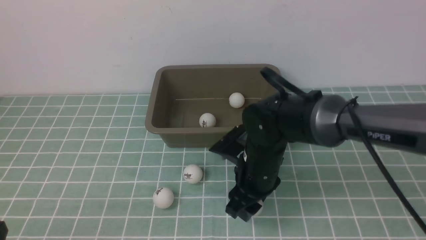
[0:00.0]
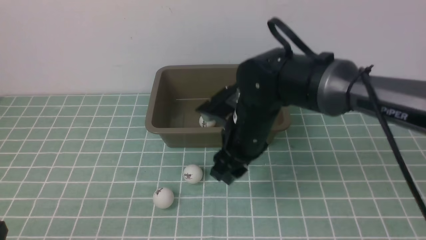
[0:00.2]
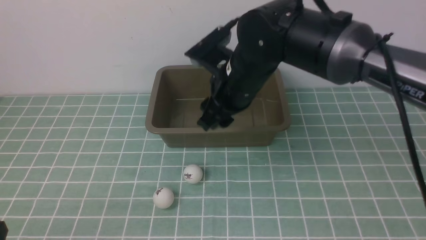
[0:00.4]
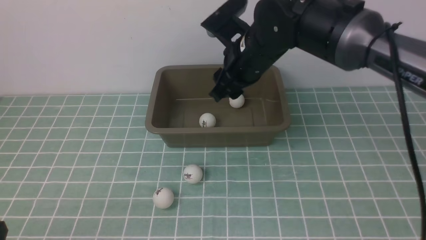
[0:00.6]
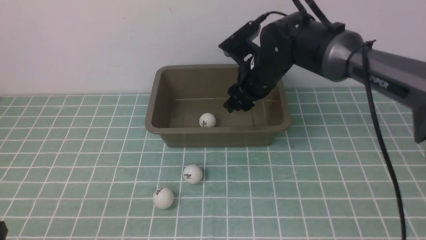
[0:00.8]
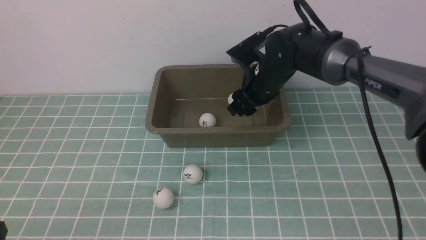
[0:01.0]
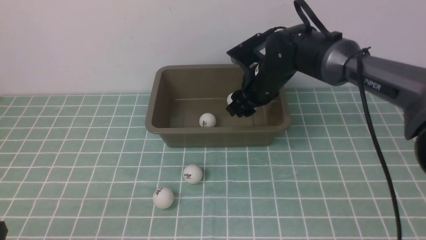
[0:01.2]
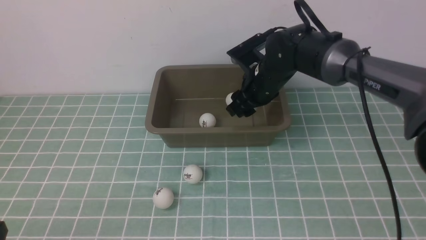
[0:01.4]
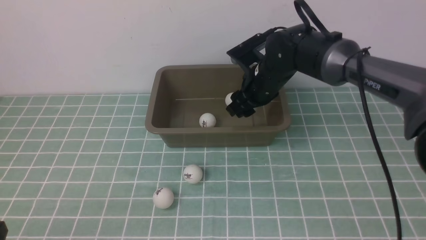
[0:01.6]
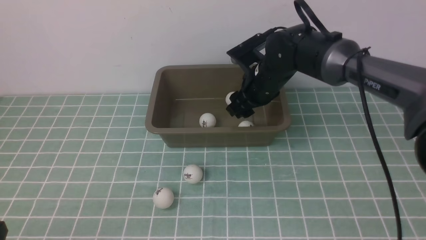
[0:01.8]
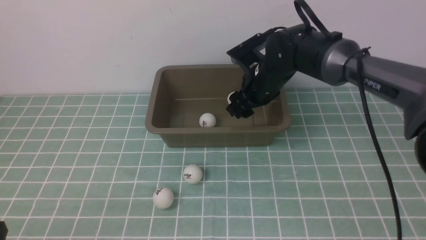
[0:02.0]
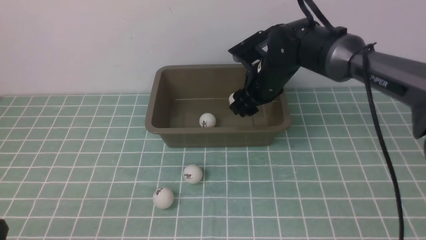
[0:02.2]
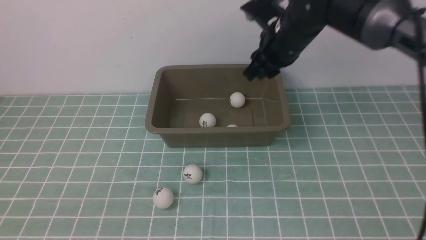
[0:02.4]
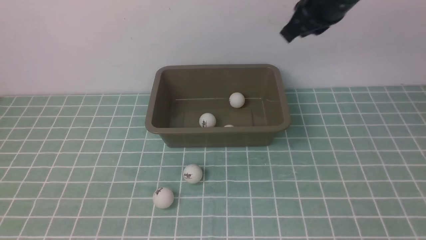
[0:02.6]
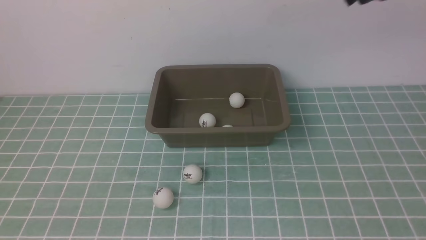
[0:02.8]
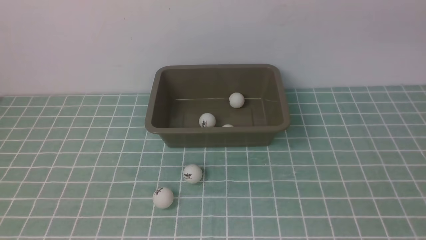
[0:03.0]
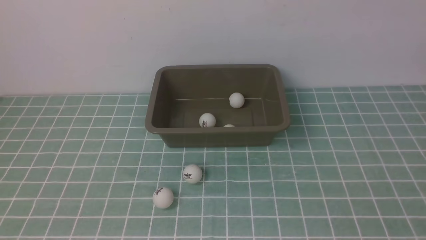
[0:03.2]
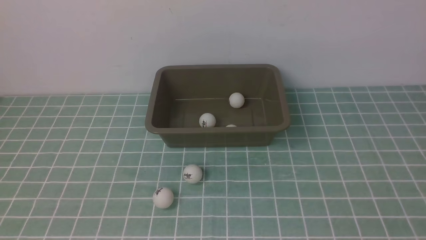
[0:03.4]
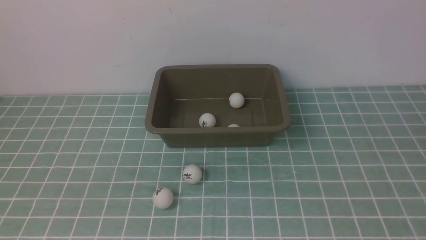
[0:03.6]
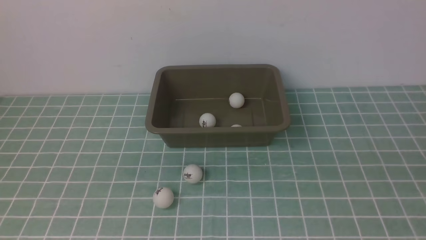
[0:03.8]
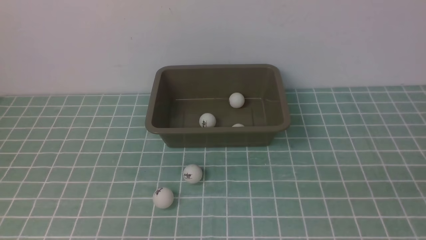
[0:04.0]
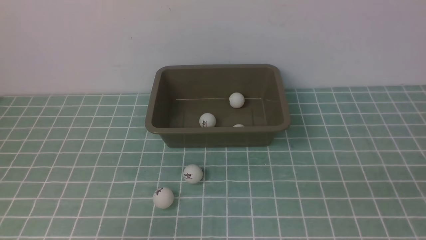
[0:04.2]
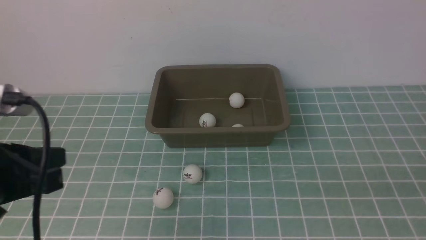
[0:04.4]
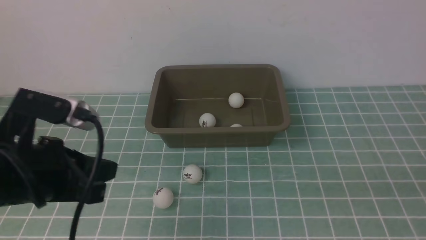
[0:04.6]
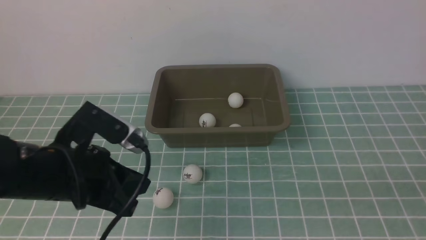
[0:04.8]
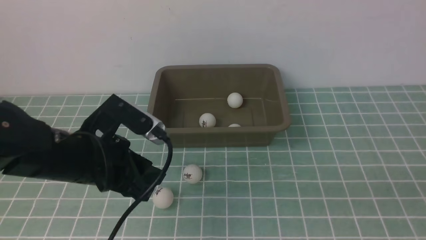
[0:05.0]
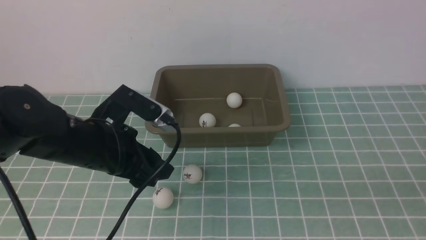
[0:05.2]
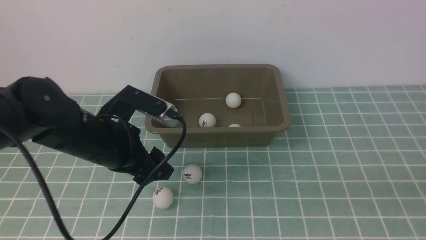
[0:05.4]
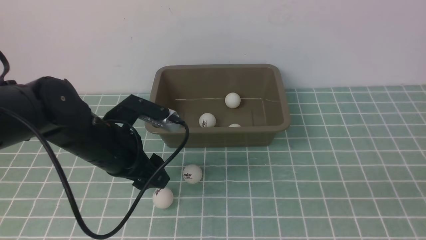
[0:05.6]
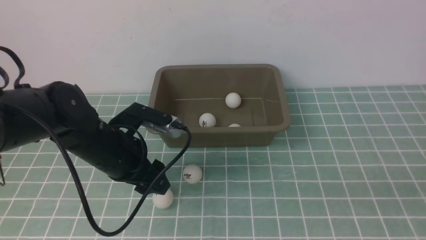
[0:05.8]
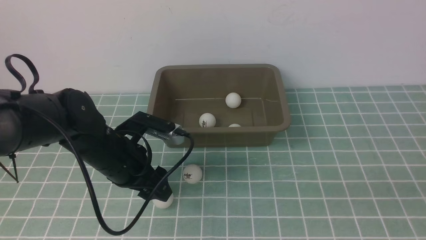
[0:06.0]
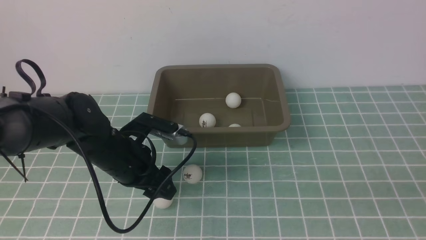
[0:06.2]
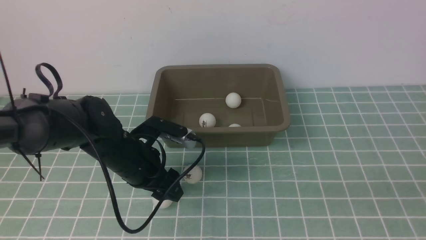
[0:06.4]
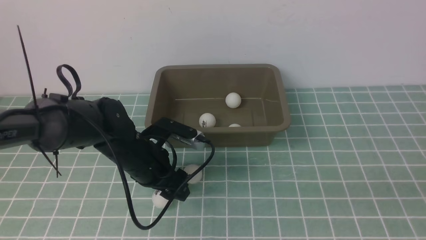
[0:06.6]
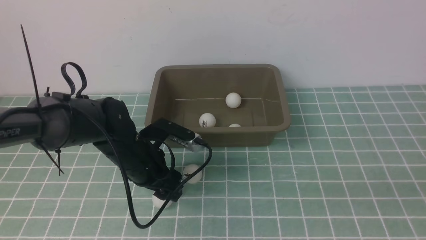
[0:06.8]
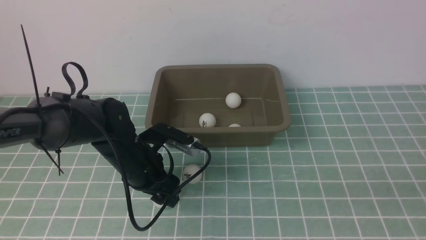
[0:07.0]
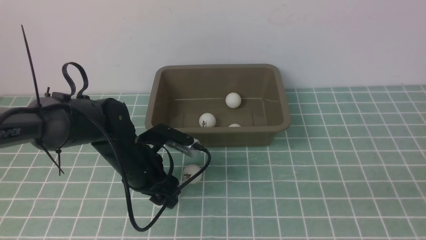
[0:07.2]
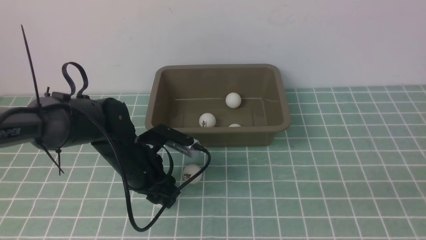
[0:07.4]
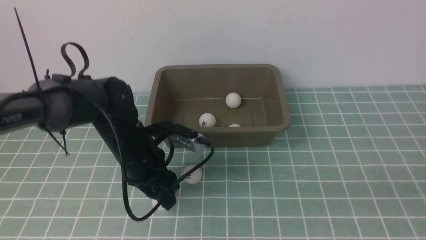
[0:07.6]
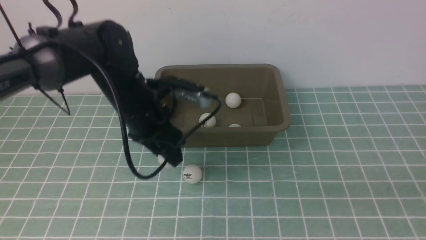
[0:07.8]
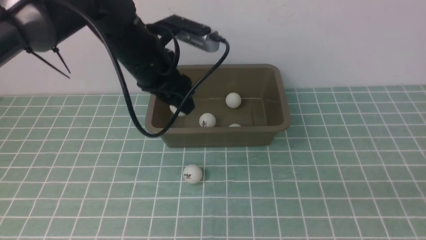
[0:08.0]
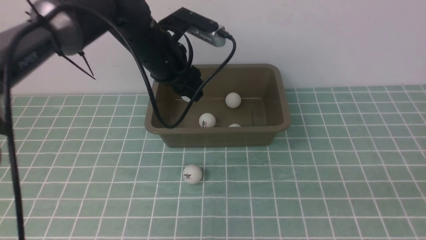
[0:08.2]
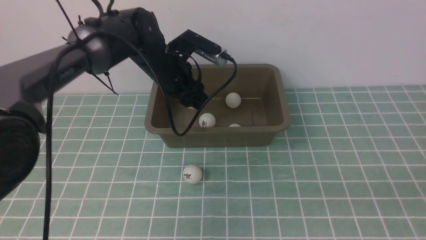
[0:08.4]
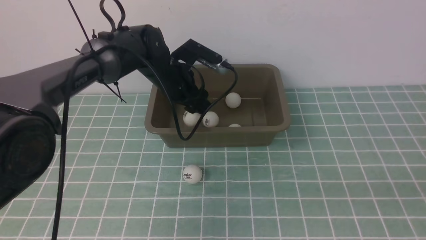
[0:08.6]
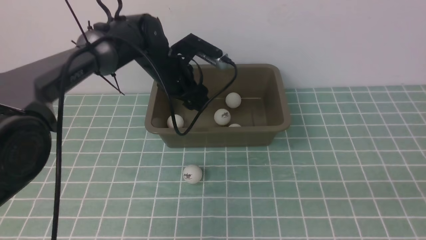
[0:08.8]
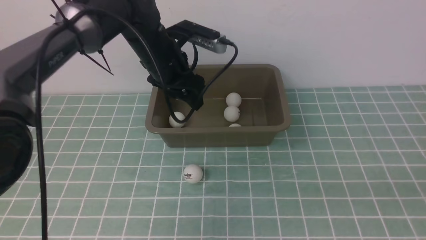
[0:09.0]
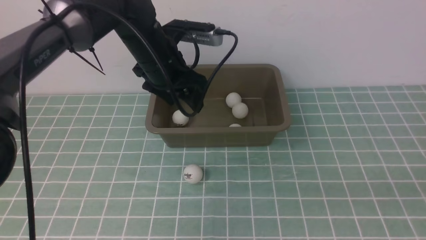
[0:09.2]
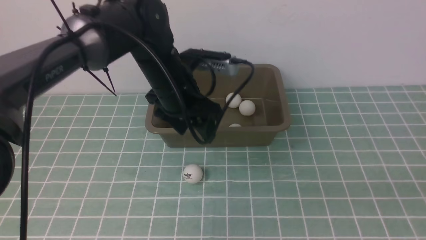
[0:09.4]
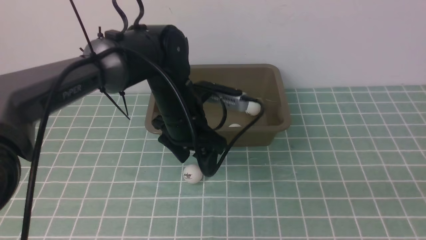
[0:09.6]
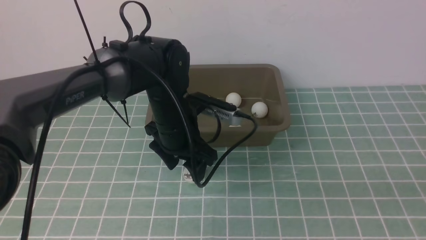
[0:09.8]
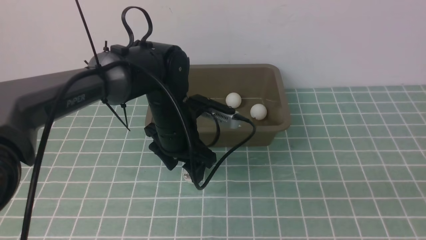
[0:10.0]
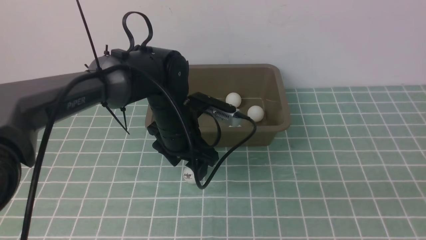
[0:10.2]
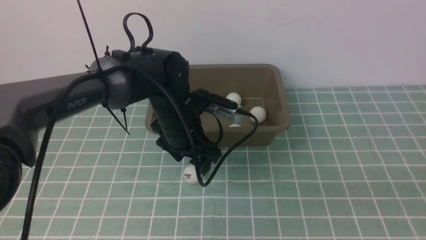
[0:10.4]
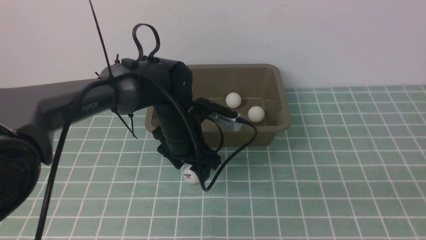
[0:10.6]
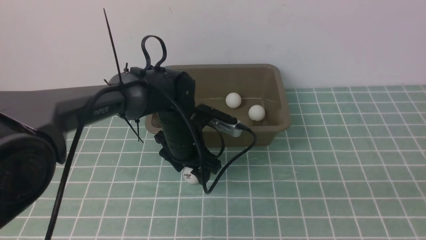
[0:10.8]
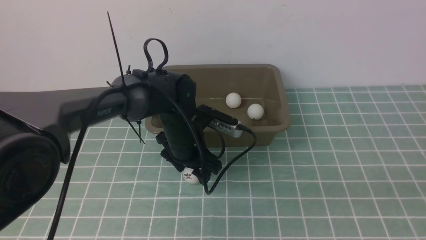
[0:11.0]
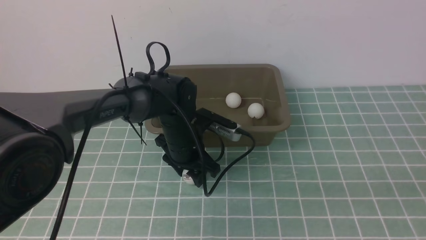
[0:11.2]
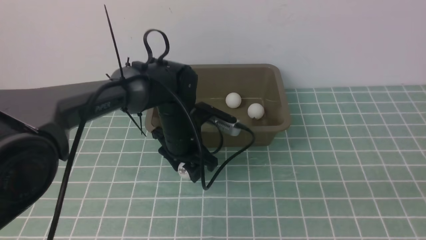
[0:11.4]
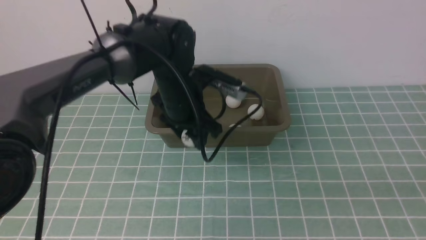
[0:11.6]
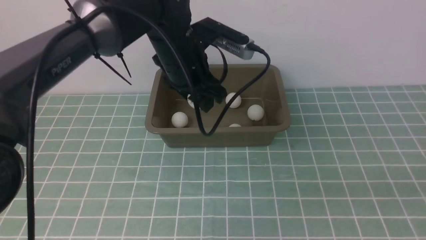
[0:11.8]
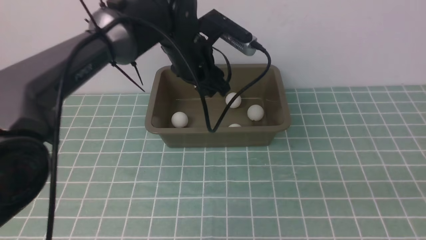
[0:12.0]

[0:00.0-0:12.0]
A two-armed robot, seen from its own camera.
Step, 0:00.4 to 0:02.0: use the right arm to put the table tennis ball into the box.
Step, 0:02.2 to 0:07.6: use the left arm to clamp the table tennis ball closest to it.
Step, 0:07.8 to 0:09.0: use the left arm to put the table tennis ball into the box.
Step, 0:09.2 to 0:11.4: use the left arm to clamp the table tennis ball closest to it.
0:00.0 to 0:01.6: The right gripper shifts about 15 cm forward.
0:01.6 to 0:03.0: The right gripper goes some 35 cm upward, to the right and backward, and closes. The left gripper is displaced upward by about 5 cm.
0:03.0 to 0:04.4: The right gripper moves backward and downward, approximately 25 cm; the left gripper travels forward and to the right by roughly 15 cm.
0:04.4 to 0:06.0: The left gripper heads forward, downward and to the right, covering about 15 cm, and opens its fingers.
0:06.0 to 0:07.6: The left gripper closes up.
0:07.6 to 0:09.0: The left gripper heads forward and upward, covering roughly 15 cm.
0:09.0 to 0:10.4: The left gripper heads backward and downward, covering roughly 10 cm.
0:10.4 to 0:12.0: The left gripper travels forward and upward by some 10 cm.

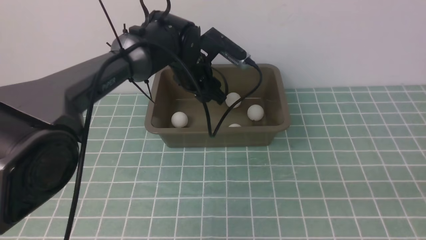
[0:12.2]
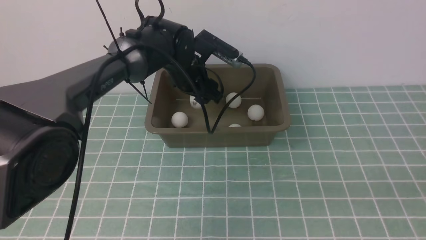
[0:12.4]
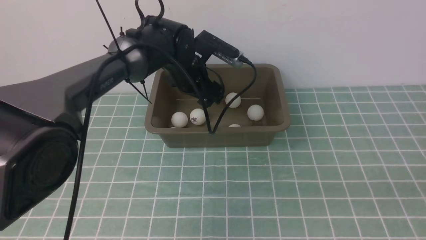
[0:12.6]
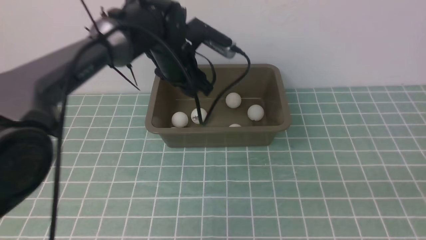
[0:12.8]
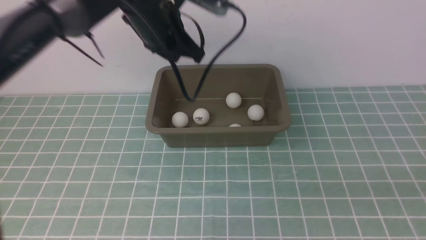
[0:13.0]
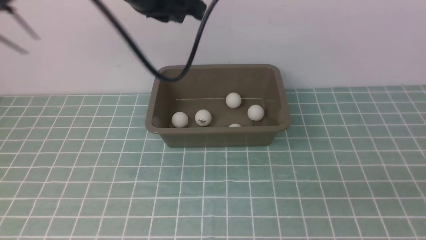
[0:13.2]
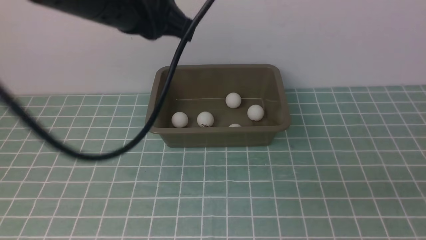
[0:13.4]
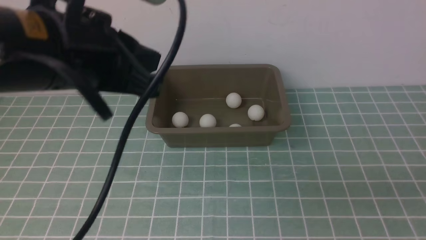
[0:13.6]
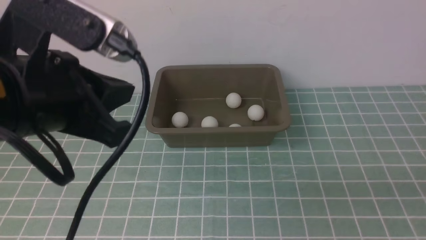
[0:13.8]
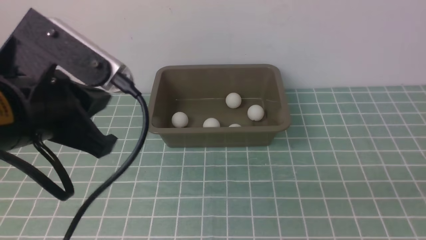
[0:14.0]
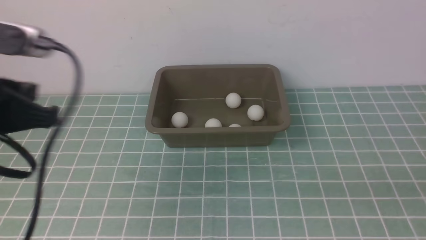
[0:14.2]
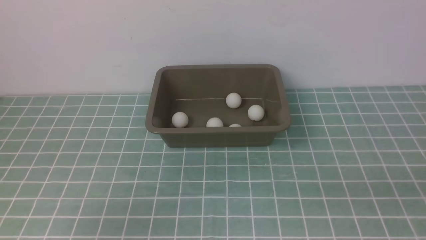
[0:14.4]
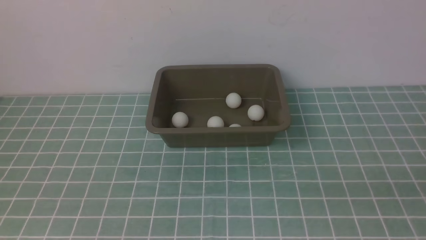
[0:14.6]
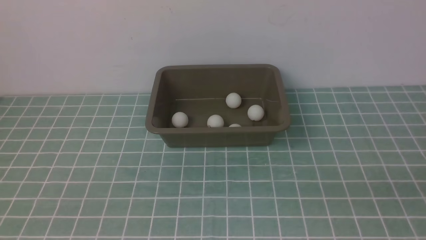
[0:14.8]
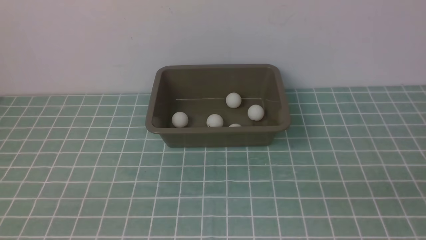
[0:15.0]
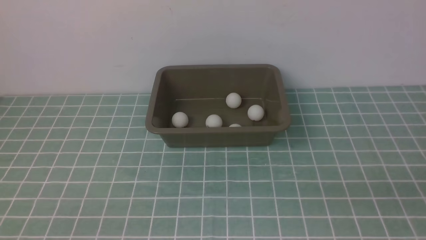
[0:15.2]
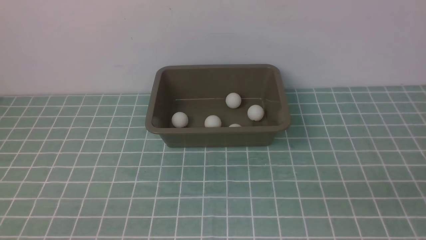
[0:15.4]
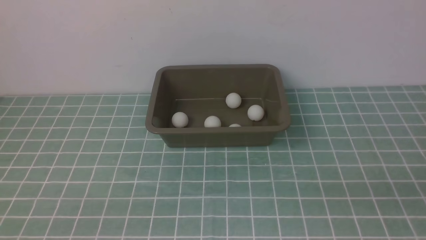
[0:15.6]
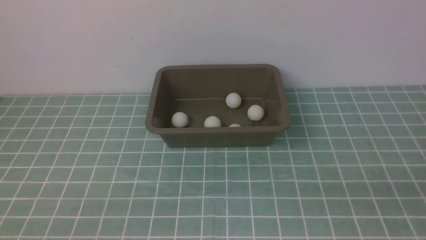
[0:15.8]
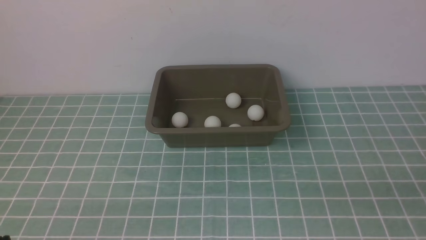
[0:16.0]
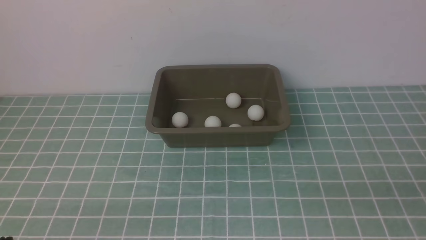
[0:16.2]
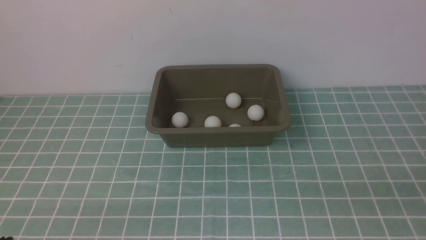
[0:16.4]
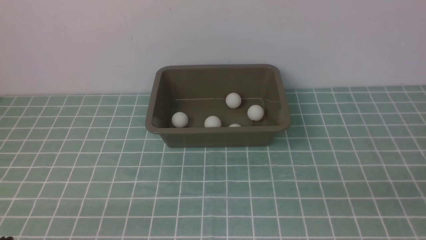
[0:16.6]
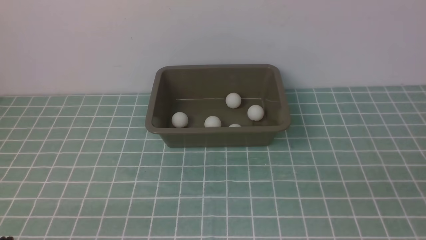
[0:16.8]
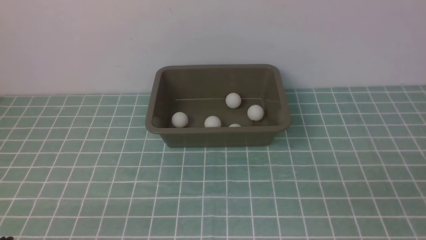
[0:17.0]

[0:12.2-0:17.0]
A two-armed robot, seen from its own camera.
0:12.2 to 0:13.8: The left gripper heads backward, to the left and upward, covering some 35 cm, and closes up.
0:13.8 to 0:15.4: The left gripper moves downward, backward and to the left, approximately 25 cm.
